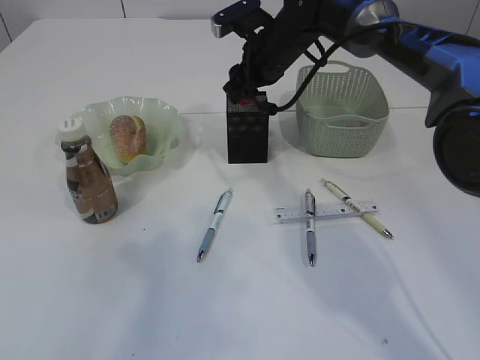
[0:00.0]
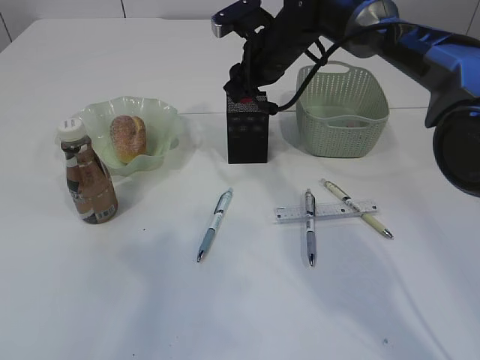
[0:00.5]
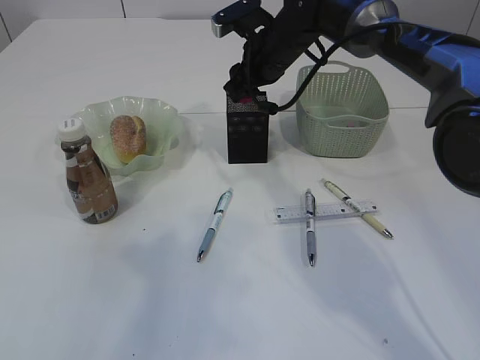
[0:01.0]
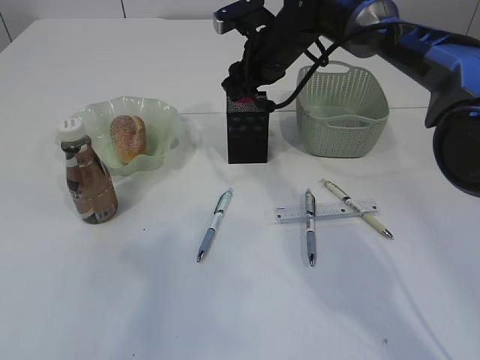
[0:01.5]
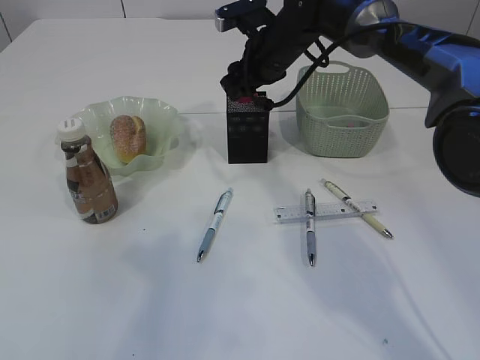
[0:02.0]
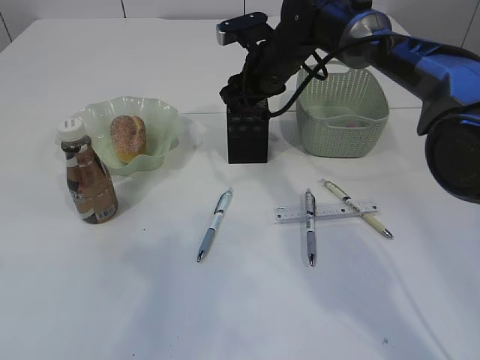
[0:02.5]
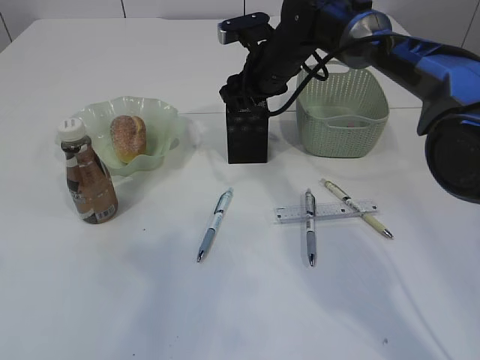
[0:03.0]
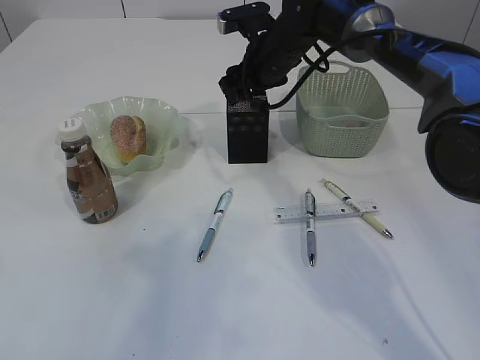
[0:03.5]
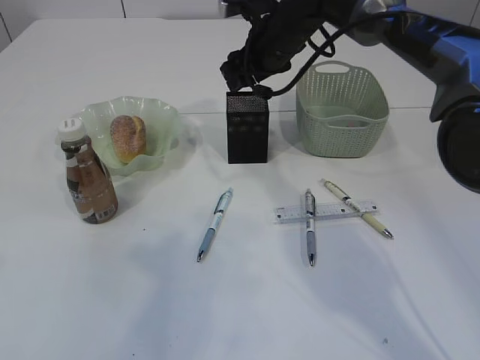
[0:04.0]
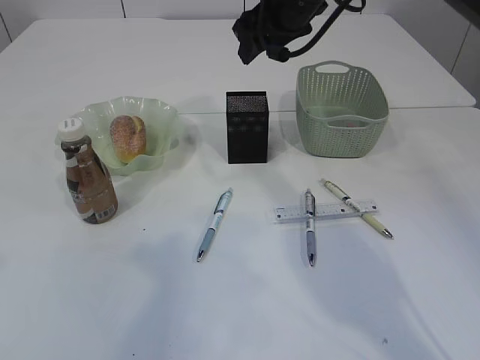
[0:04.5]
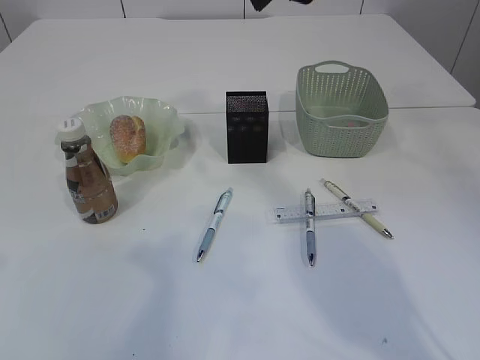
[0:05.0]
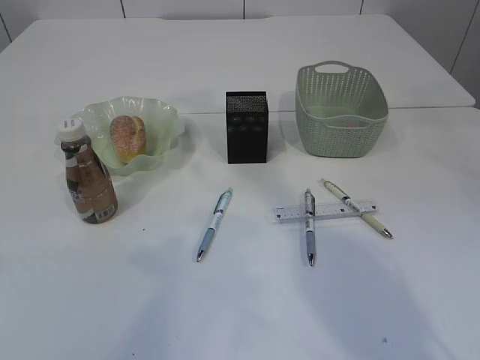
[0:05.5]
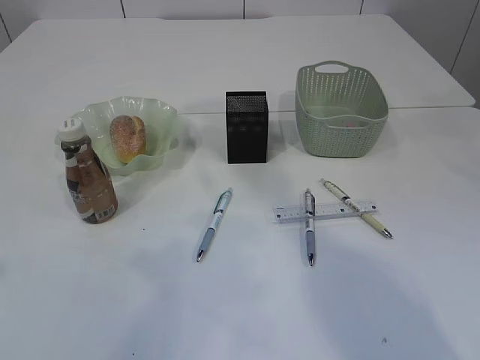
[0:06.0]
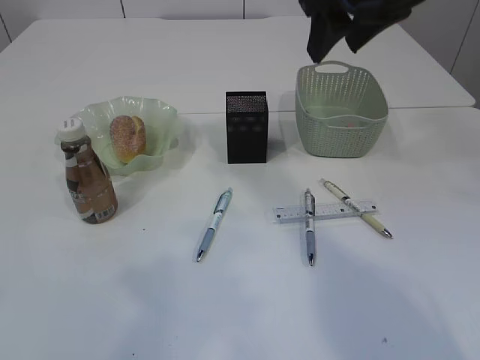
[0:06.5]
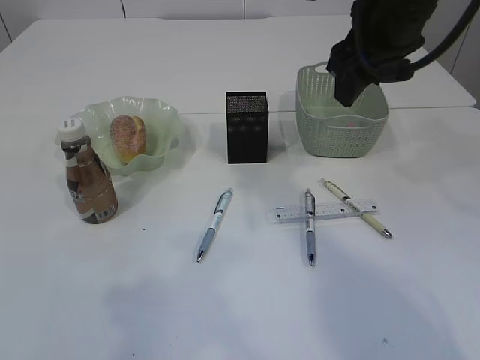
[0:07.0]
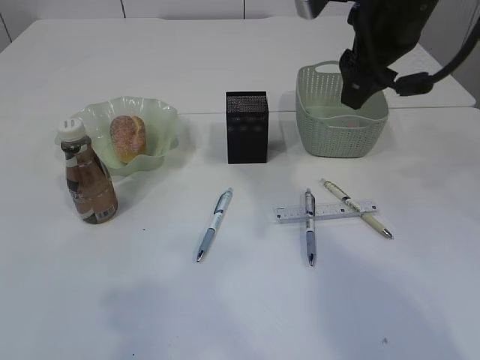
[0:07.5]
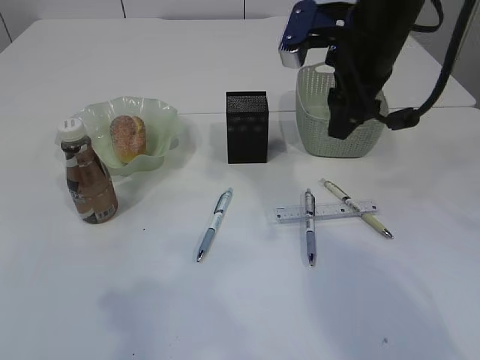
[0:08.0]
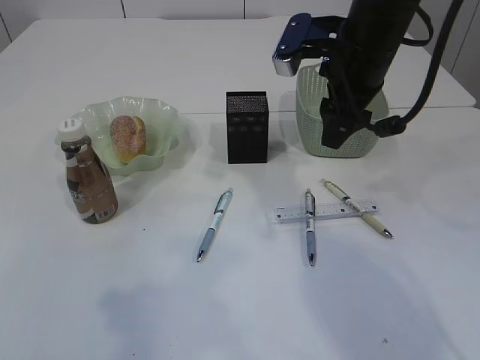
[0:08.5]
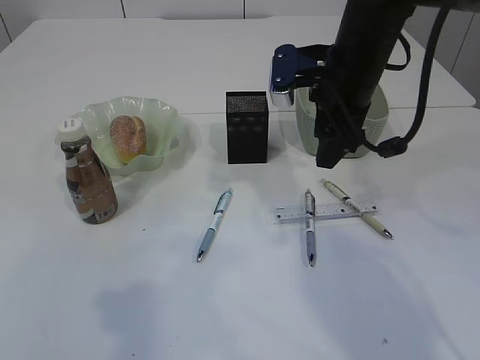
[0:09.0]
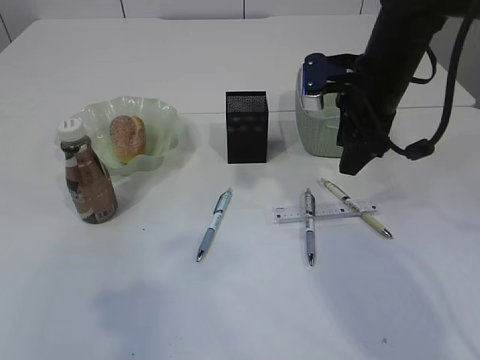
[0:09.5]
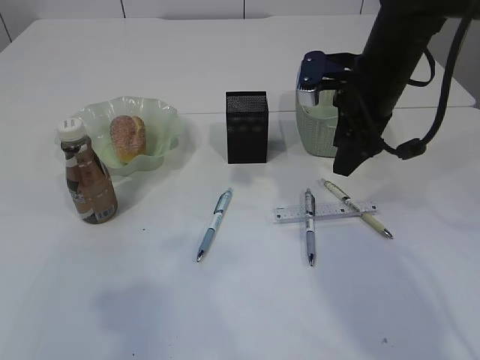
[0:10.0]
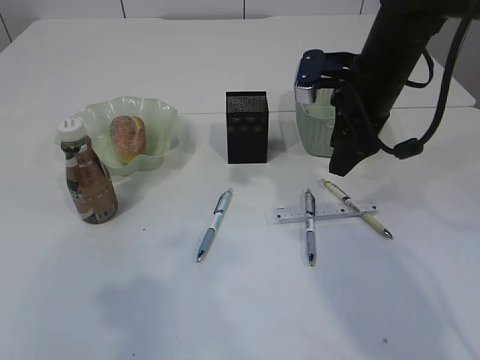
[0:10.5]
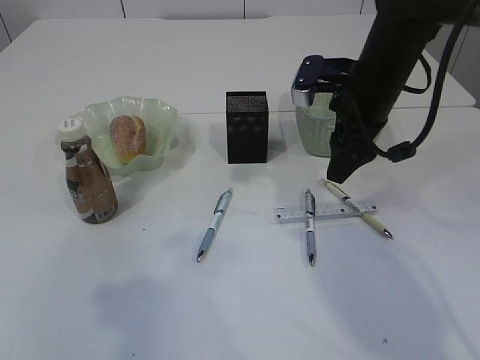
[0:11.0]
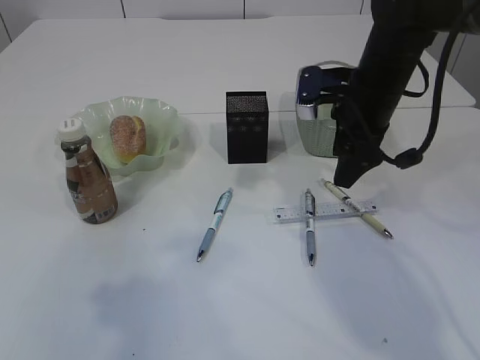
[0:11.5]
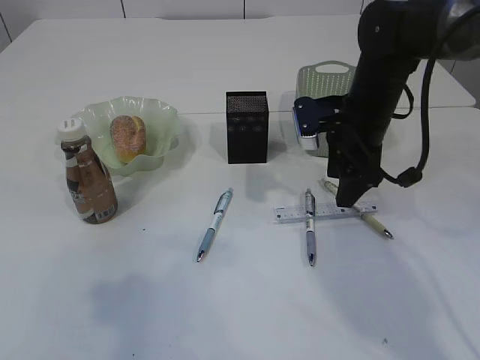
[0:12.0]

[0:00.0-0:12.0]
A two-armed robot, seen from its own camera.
Step, 0:00.0 to 0:03.5: Place the red pencil sharpener into the pen holder.
0:00.0 to 0:04.0: There are only small adjustments of the grippers.
0:04.0 to 0:06.0: The right gripper shifts roughly 20 cm upward and backward.
0:06.0 to 0:08.0: The right gripper travels downward by approximately 10 cm.
0:08.0 to 0:10.0: The right gripper heads downward, covering about 5 cm.
0:10.0 to 0:12.0: The right gripper shifts roughly 5 cm downward.

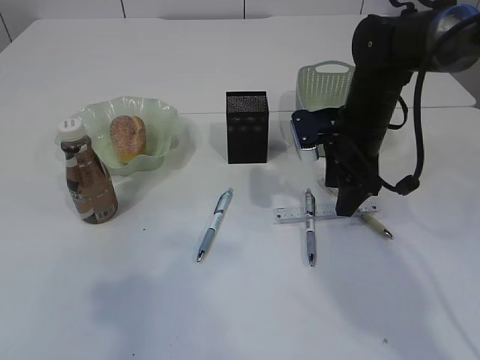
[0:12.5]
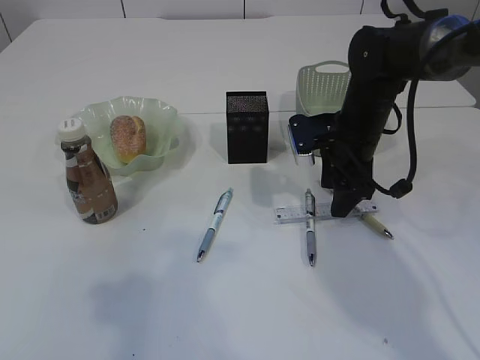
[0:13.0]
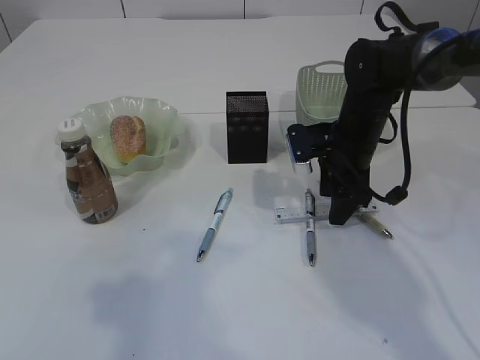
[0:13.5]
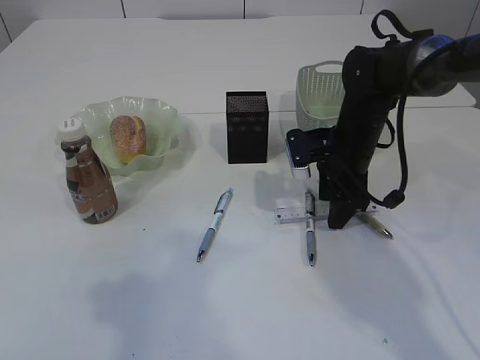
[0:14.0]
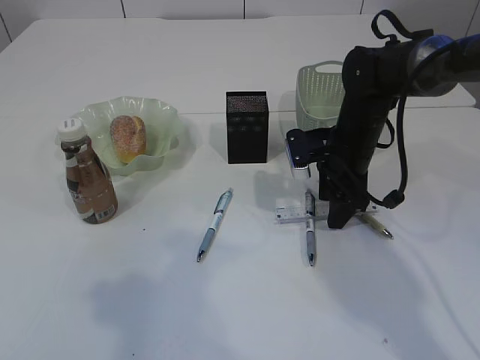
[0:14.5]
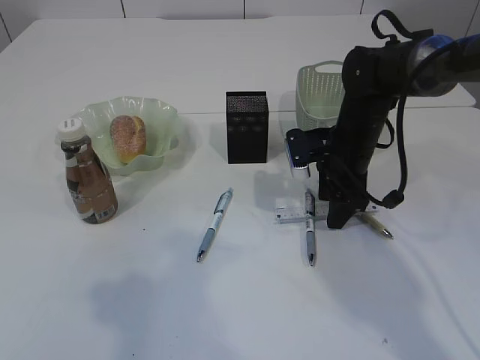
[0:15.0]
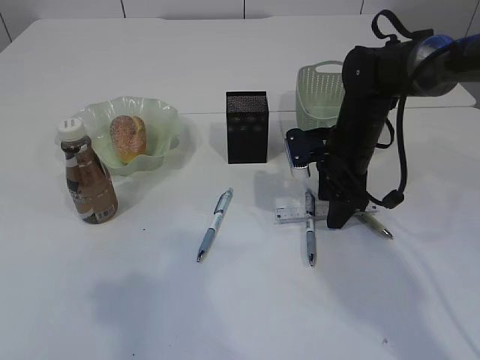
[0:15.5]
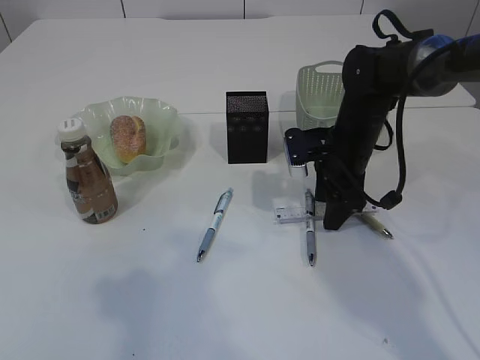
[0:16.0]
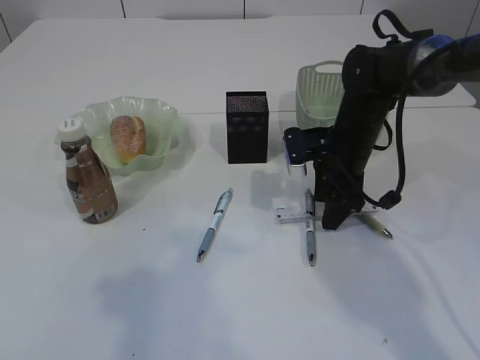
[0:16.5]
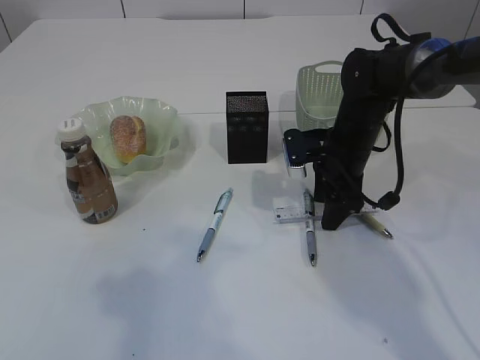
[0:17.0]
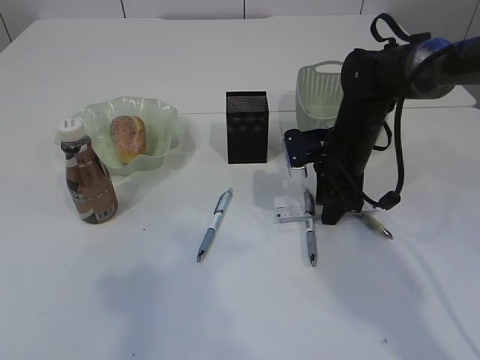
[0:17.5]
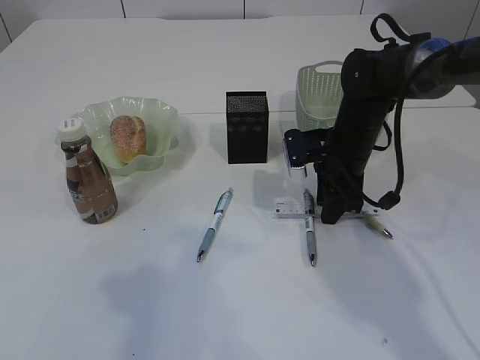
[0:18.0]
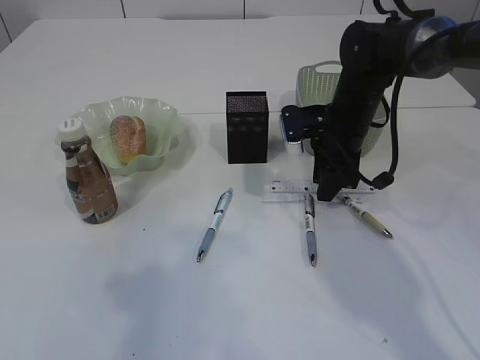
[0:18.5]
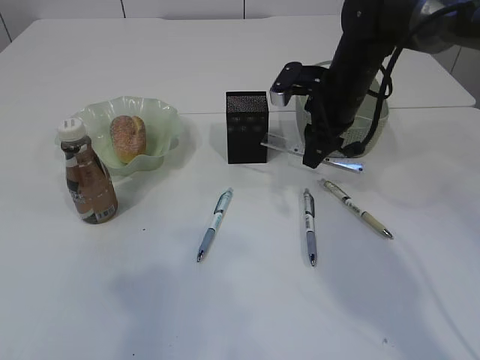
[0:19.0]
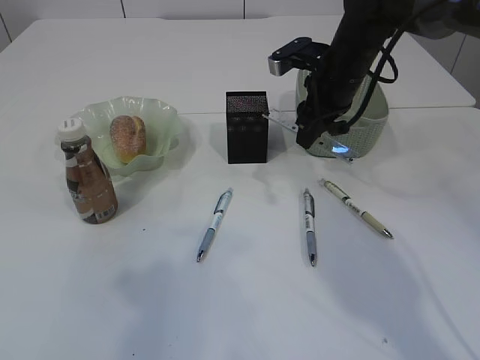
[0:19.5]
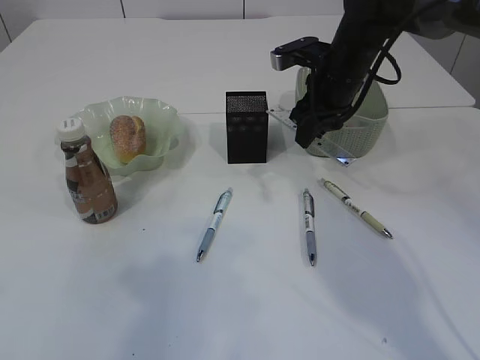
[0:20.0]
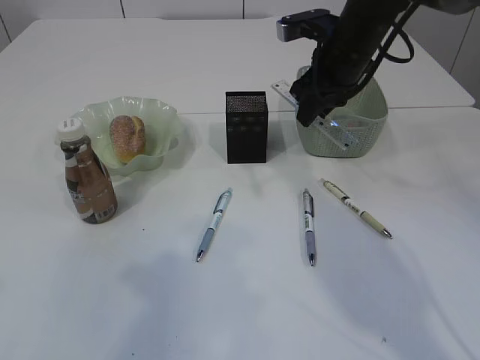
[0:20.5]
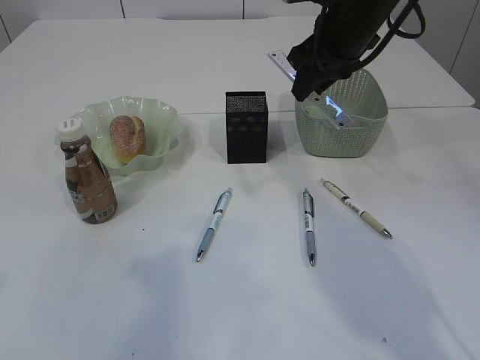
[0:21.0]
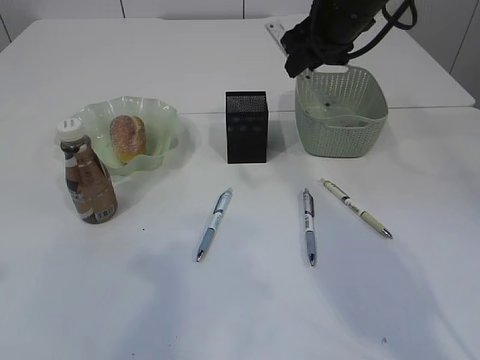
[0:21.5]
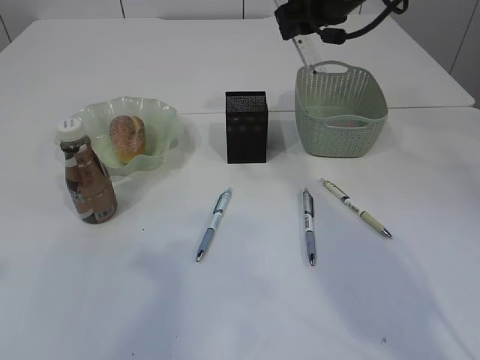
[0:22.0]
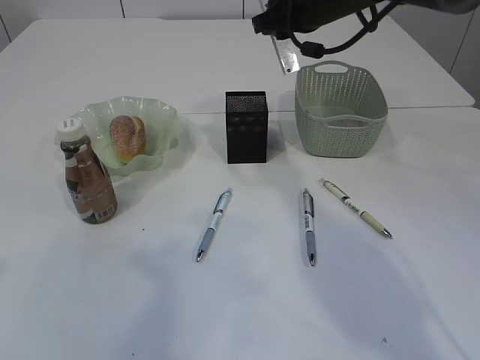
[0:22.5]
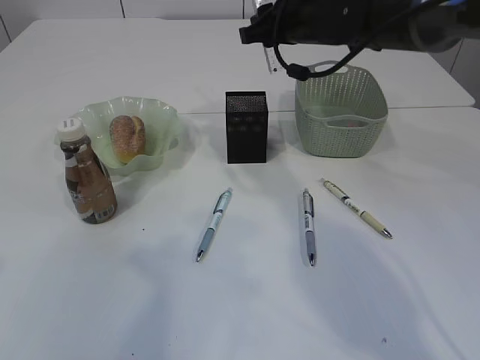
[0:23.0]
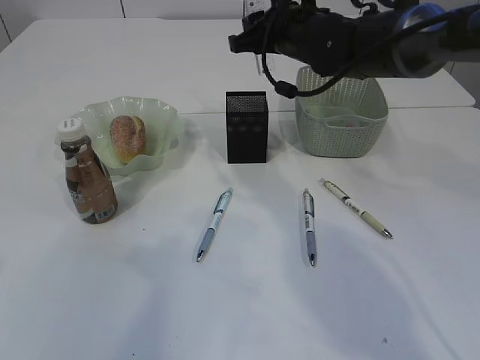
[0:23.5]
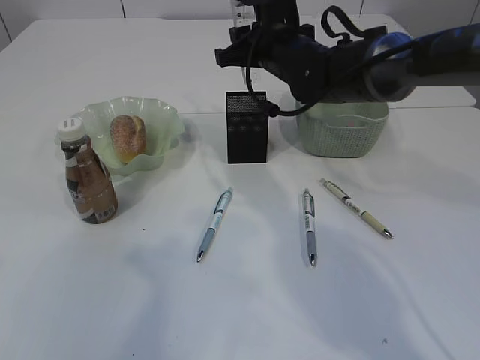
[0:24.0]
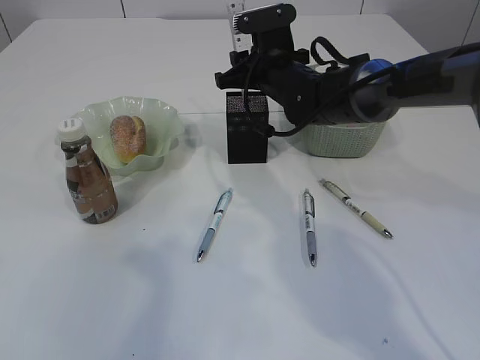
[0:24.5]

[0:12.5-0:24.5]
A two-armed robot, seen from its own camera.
Step, 0:12.5 to 0:19.0: pick up the ruler.
0:12.5 to 0:14.5: The grippers move only a little.
0:14.5 to 0:16.5: Both grippers stay about where they are.
0:16.5 to 0:18.5: The right gripper closes up.
0:18.5 to 0:20.5: The right gripper is displaced upward by roughly 10 cm.
0:20.5 to 0:22.5: The right gripper goes about 5 cm upward.
0:22.5 to 0:24.5: The right gripper moves downward and to the left, roughly 10 cm.

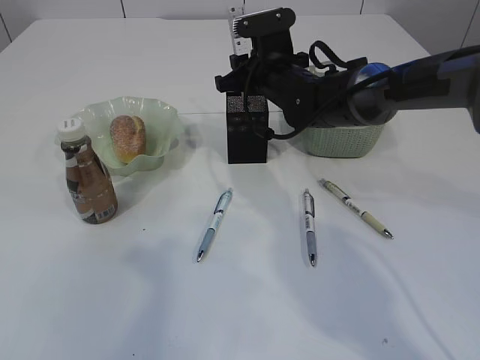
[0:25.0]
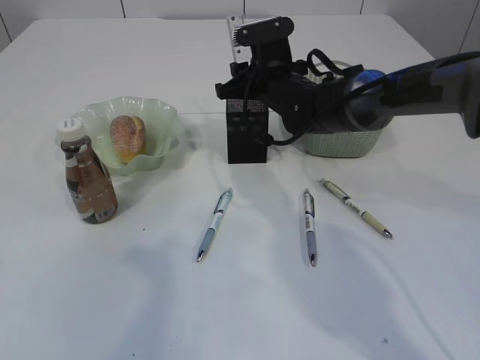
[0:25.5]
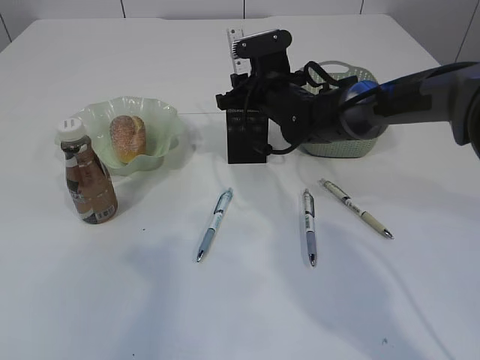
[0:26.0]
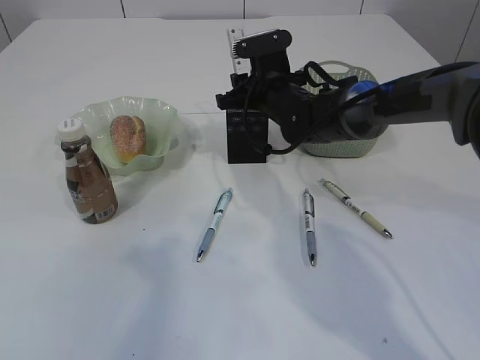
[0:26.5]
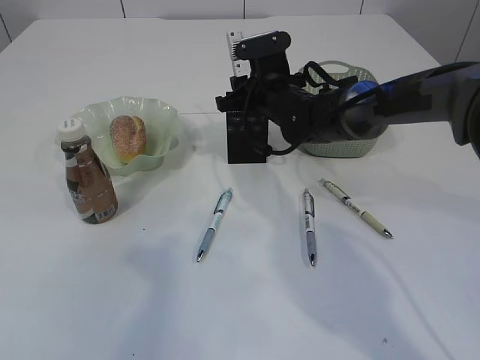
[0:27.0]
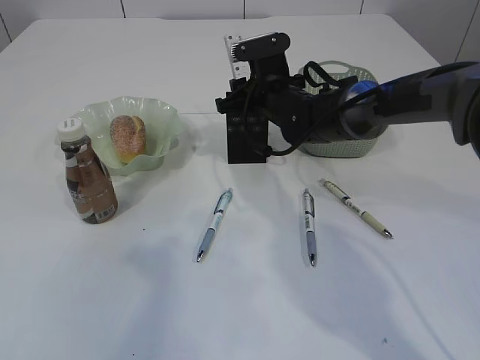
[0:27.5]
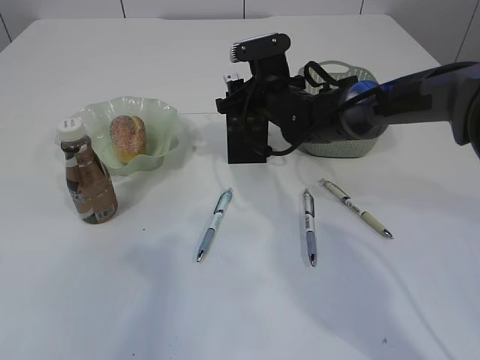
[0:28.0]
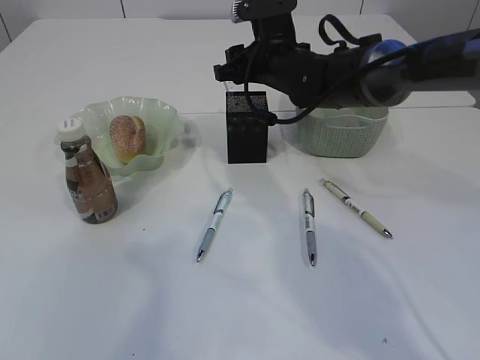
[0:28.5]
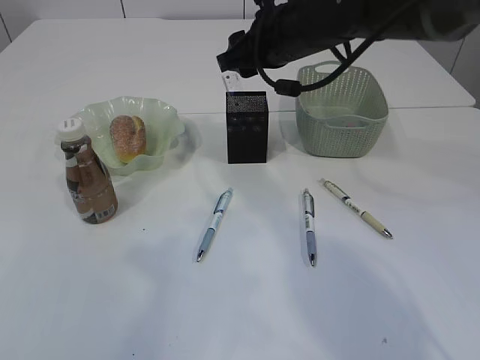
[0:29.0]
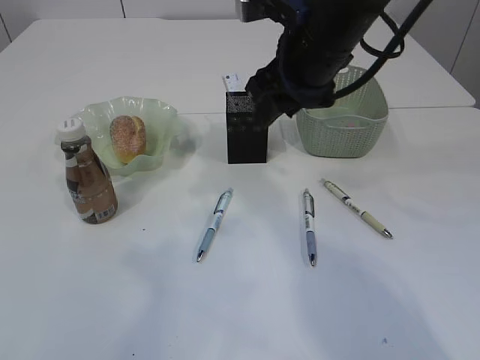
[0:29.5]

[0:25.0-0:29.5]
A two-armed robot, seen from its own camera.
Step, 0:25.0 to 0:28.5: Place the ruler into the pen holder.
0:25.0 to 0:27.0: The grippers make only small movements.
0:27.0 to 0:29.5: The right gripper shifts approximately 15 cm upward and backward.
